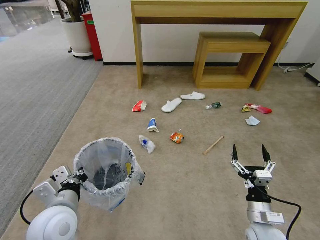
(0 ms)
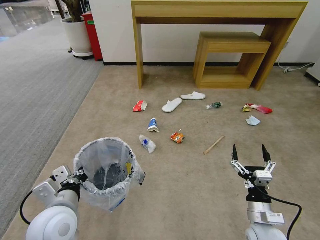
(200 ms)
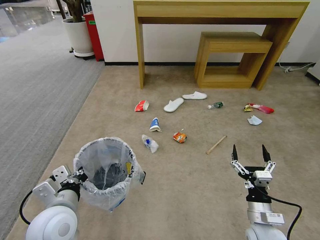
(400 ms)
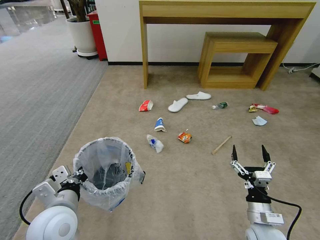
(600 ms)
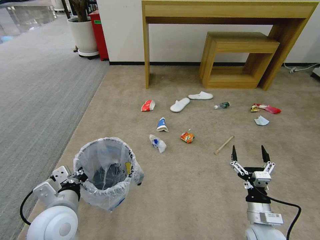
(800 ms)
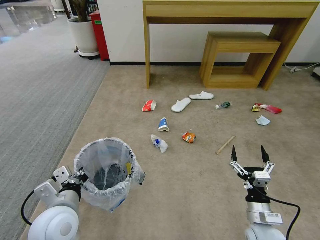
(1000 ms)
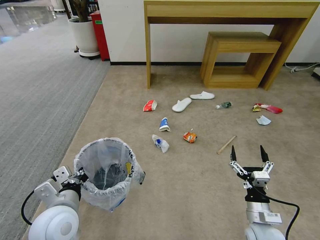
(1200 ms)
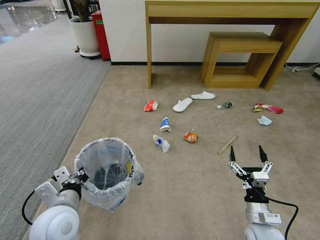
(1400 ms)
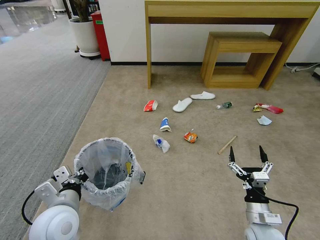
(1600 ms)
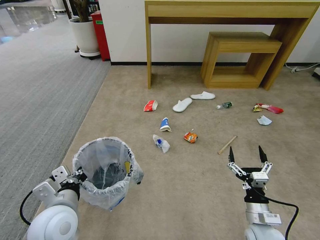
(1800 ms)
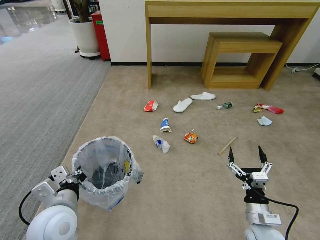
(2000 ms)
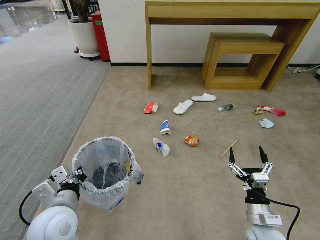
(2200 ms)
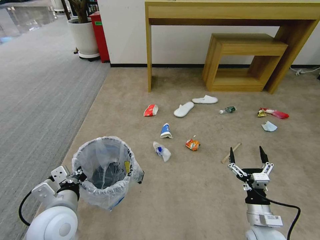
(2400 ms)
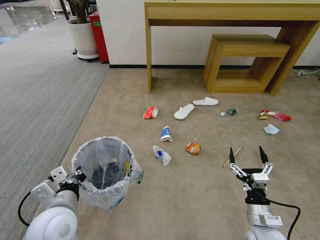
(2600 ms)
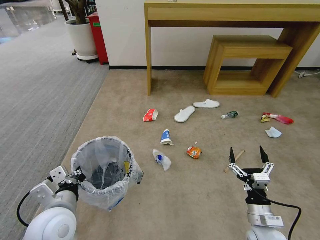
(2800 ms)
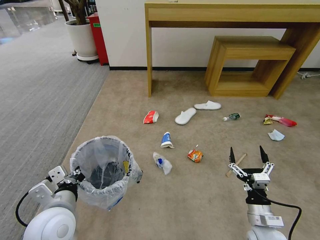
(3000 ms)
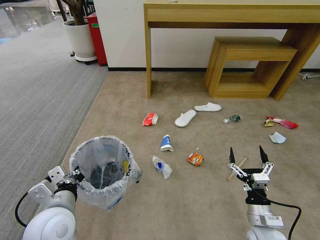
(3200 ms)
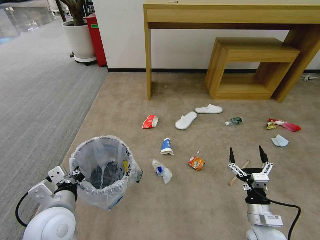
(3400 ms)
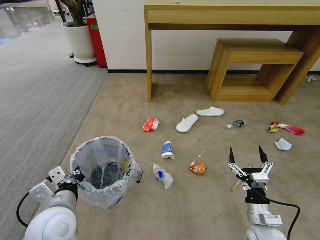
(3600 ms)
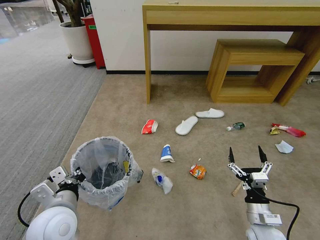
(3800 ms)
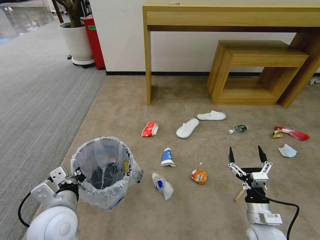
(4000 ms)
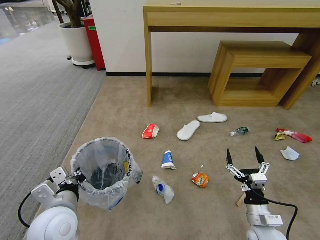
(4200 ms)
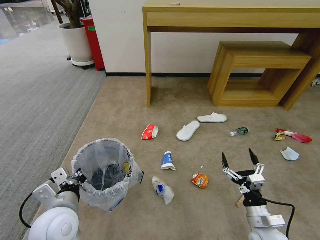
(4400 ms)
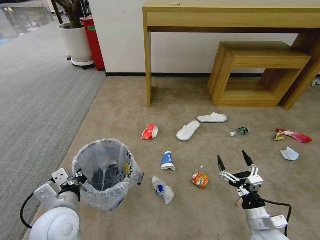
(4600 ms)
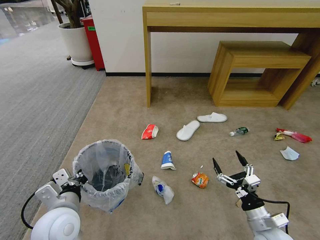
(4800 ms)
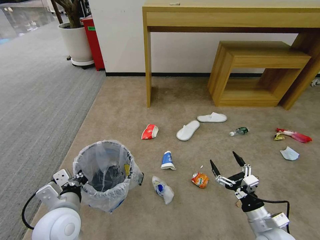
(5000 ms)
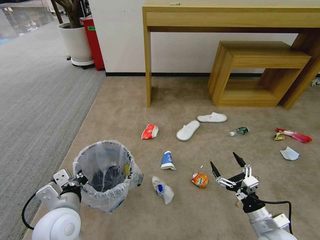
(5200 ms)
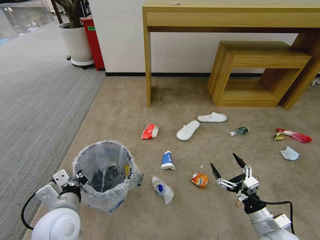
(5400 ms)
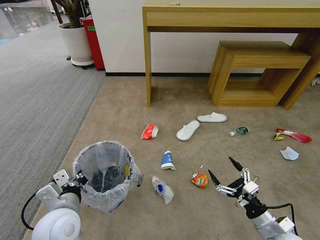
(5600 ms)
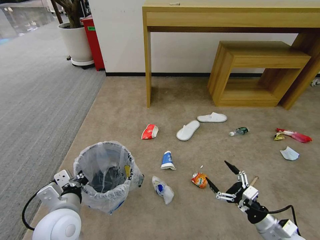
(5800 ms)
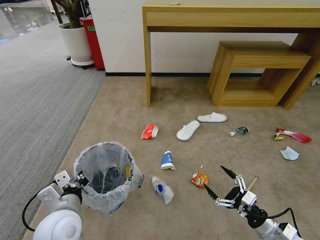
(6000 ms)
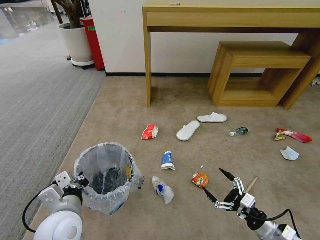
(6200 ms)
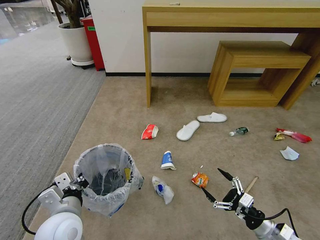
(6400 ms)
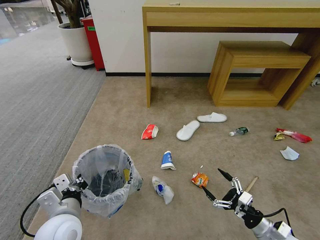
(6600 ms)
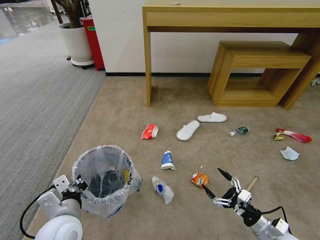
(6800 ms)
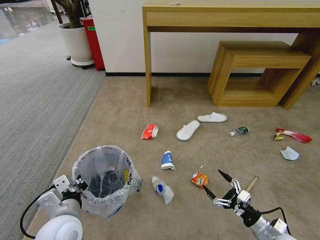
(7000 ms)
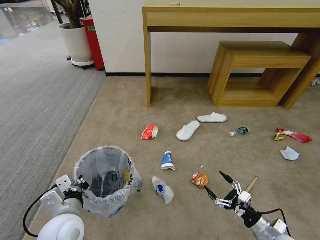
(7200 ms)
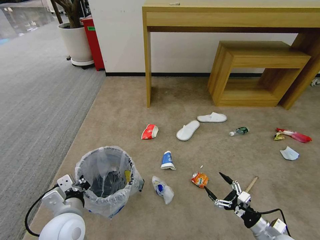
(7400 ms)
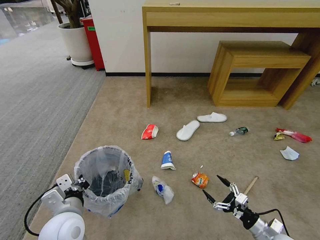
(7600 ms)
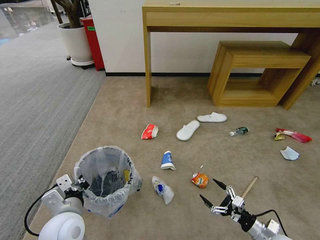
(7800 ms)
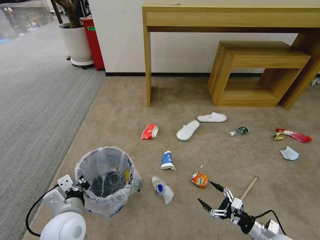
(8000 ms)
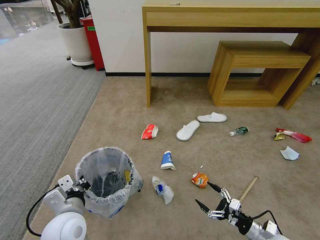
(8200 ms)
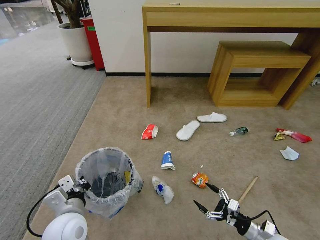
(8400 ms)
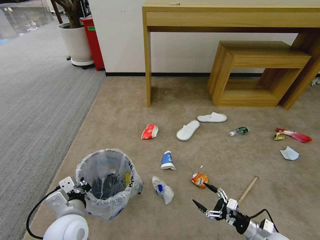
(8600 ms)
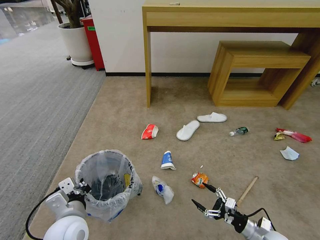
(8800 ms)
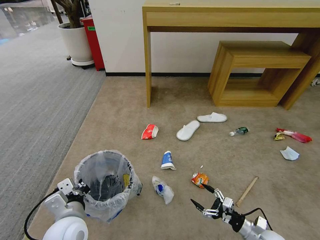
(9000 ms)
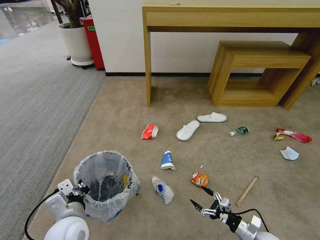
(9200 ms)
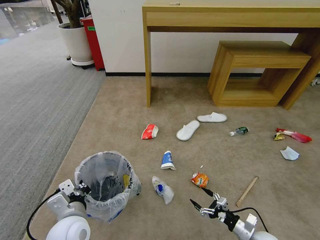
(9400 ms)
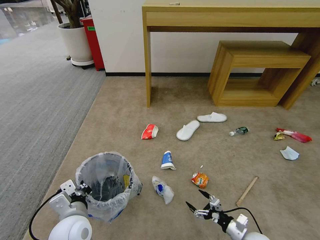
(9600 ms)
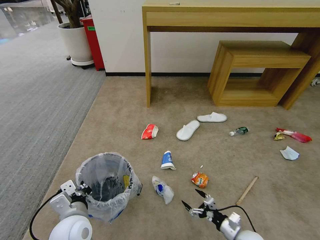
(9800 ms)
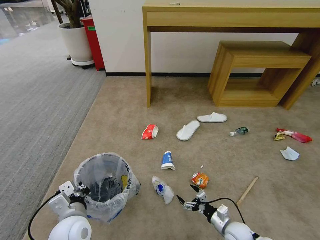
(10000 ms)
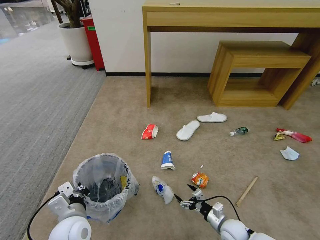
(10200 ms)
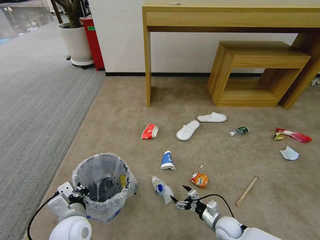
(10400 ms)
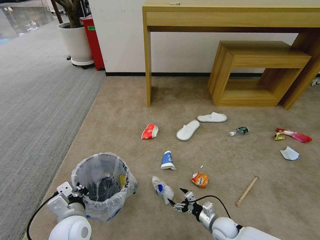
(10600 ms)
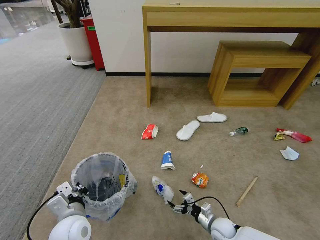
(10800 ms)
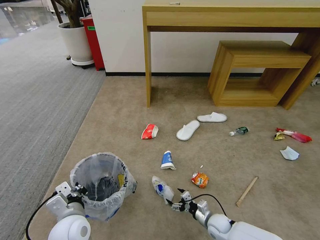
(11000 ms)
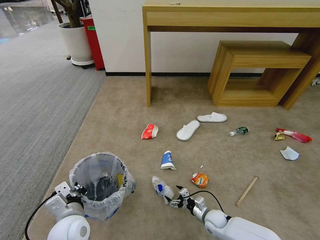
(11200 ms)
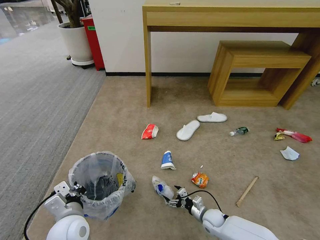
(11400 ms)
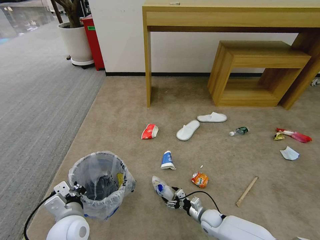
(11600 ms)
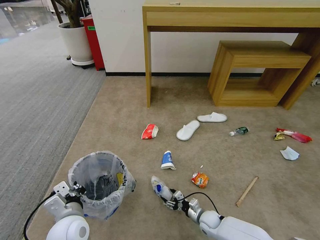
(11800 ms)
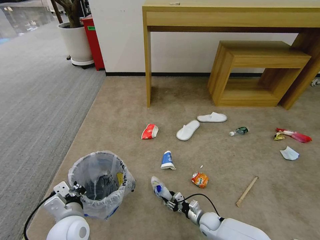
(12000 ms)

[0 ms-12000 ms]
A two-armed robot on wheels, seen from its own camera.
Task of the whole recording: Pick up the trash bin and place the garbage on the floor into it.
0 ms to 1600 ms: Both grippers stay put.
4400 ms to 6000 ms: The right gripper is displaced to the right by approximately 5 cm.
6000 ms to 7600 ms: The right gripper travels downward by approximately 5 cm.
7600 ms to 9000 ms: There are only small adjustments of the grippers.
9000 ms to 10400 ms: The right gripper moves to the left and forward, about 10 cm.
10400 ms to 12000 ms: The right gripper goes roughly 5 cm downward, and closes.

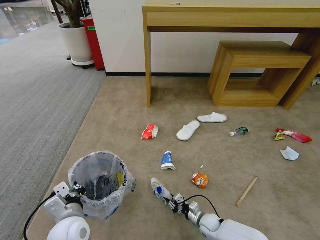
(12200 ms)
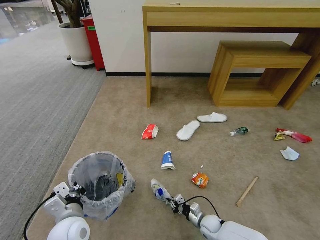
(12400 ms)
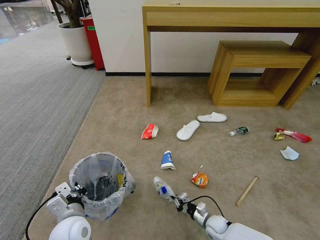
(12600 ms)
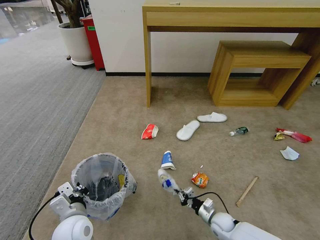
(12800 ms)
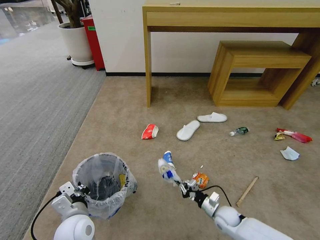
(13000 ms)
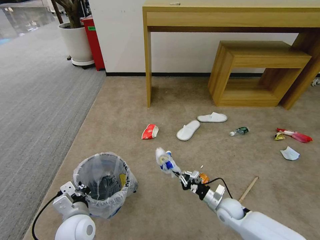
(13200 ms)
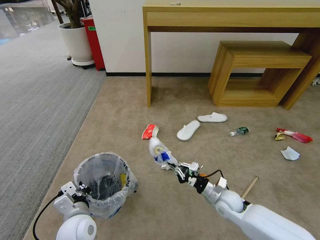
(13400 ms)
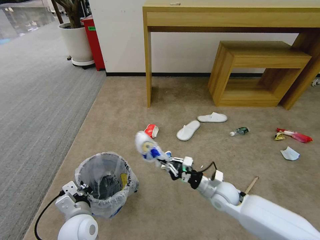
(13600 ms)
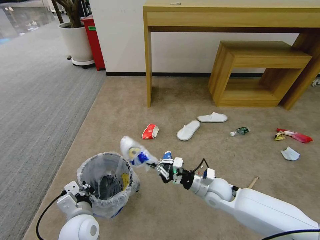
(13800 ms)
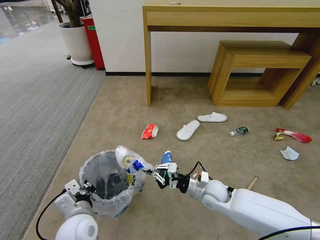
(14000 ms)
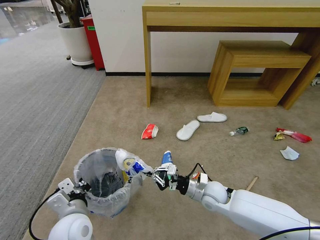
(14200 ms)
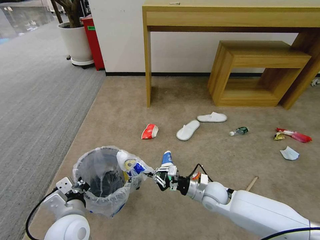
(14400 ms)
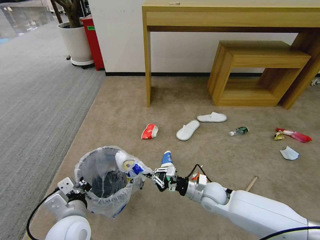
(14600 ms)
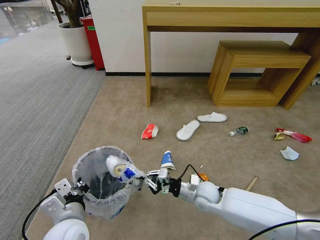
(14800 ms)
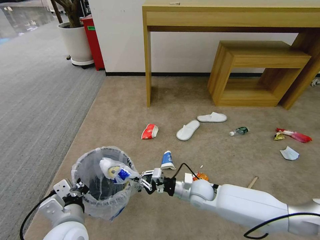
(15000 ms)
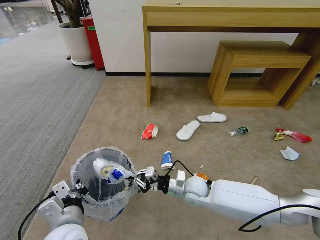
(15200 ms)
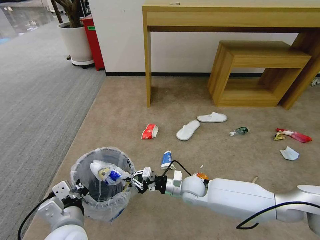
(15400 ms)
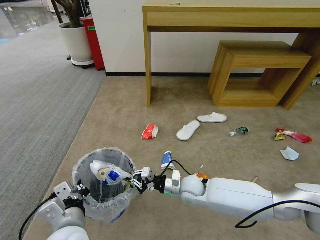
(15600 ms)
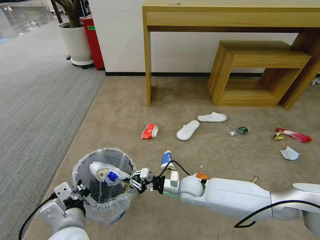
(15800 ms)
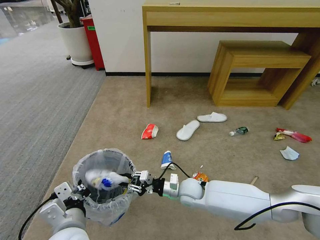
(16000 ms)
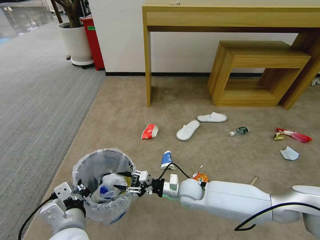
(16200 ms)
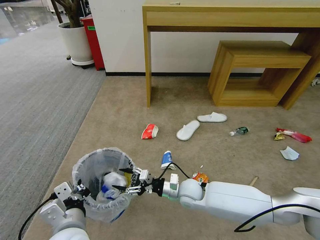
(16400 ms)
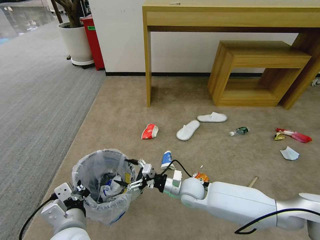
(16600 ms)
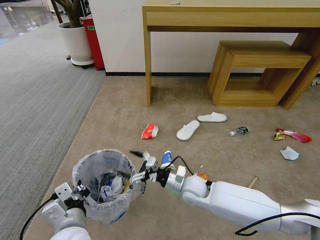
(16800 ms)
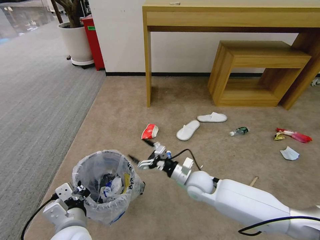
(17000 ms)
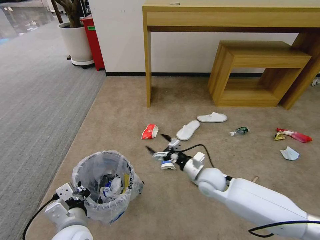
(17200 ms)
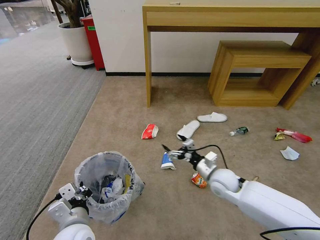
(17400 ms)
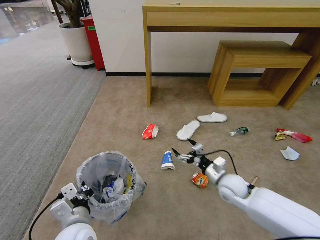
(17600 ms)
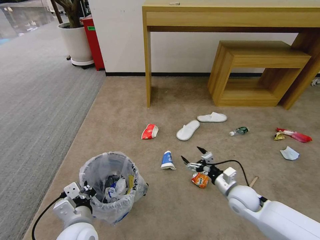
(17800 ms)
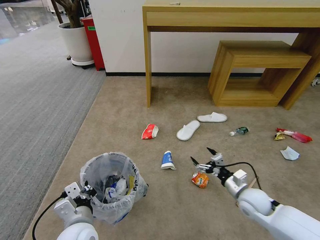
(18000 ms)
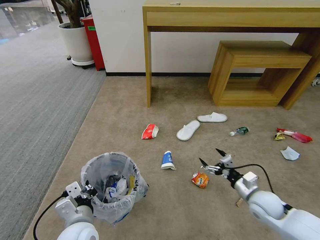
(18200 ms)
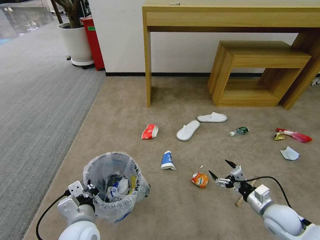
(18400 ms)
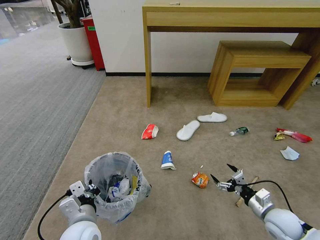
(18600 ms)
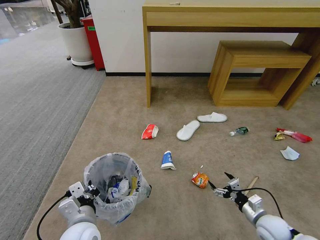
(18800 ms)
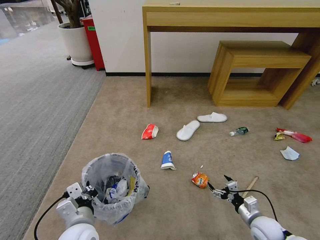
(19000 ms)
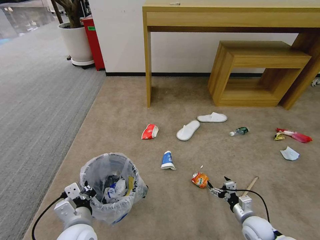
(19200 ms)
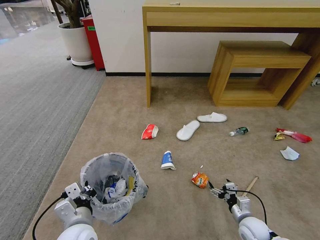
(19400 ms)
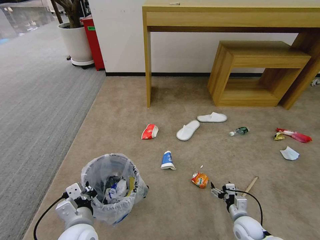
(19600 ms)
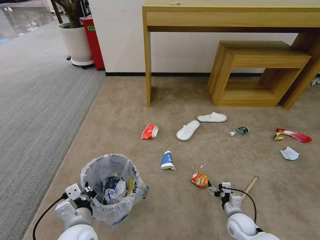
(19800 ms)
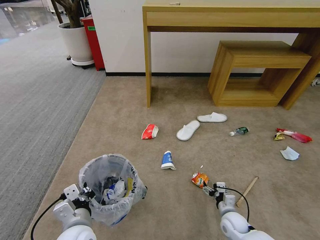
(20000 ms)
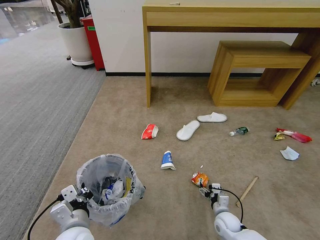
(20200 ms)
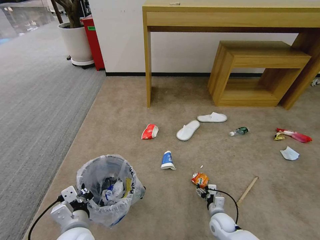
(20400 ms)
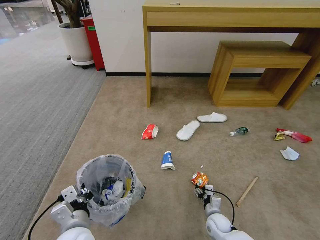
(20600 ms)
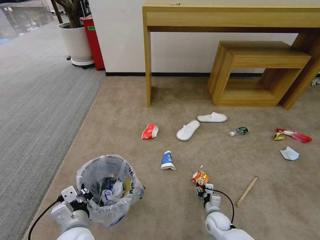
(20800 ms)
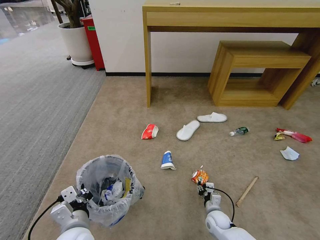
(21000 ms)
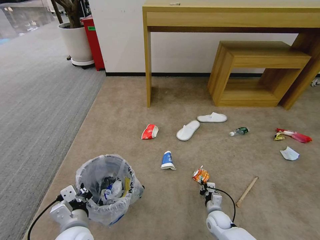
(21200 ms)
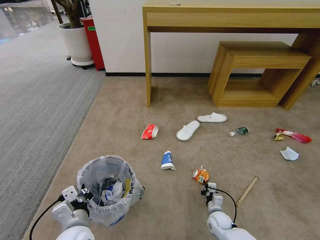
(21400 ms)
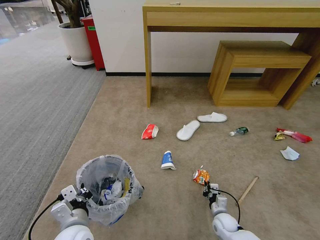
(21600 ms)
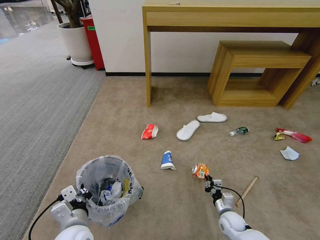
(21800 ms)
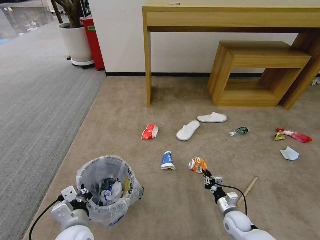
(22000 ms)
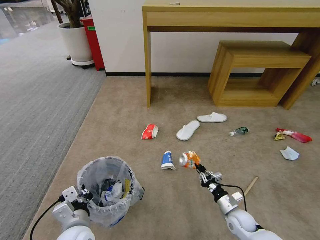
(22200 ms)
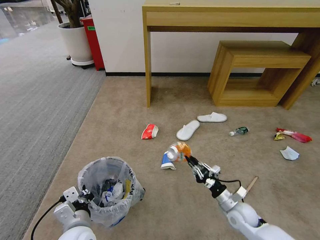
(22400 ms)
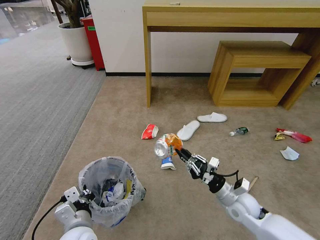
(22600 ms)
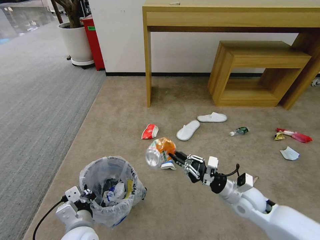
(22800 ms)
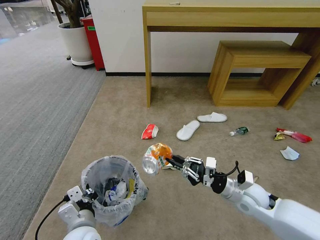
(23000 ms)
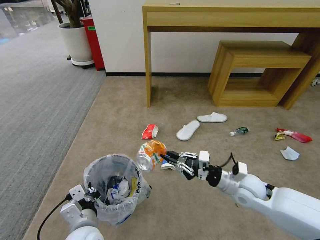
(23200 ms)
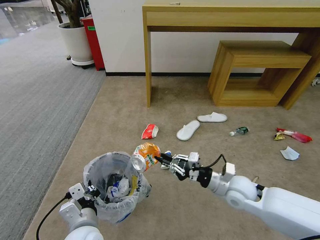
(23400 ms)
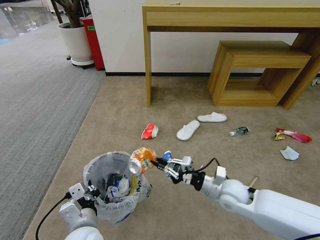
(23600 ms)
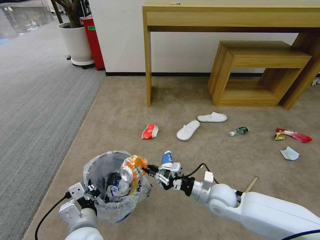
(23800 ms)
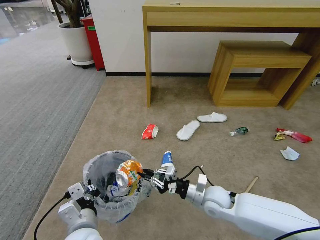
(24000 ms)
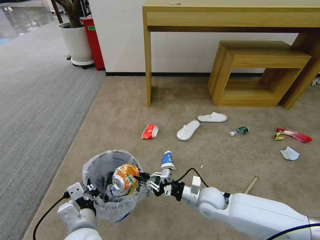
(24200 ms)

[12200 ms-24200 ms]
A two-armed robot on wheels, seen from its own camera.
Task of the whole recording: Pick up the trash bin and place the garbage on the floor into it.
12200 ms to 13800 ms: The right gripper shifts some 25 cm upward.
13800 ms to 15200 ms: The right gripper heads to the left, covering approximately 5 cm. The left gripper shifts some 5 cm upward.
15200 ms to 16600 ms: The right gripper opens its fingers.
16600 ms to 18200 ms: The right gripper is displaced to the right by roughly 25 cm.
18200 ms to 19800 ms: The right gripper moves downward, roughly 15 cm.
19800 ms to 21200 ms: The right gripper is displaced to the left and downward by roughly 10 cm, and closes.
21200 ms to 22600 ms: The right gripper moves upward, approximately 20 cm.
22600 ms to 24200 ms: The right gripper moves to the left, about 10 cm.
